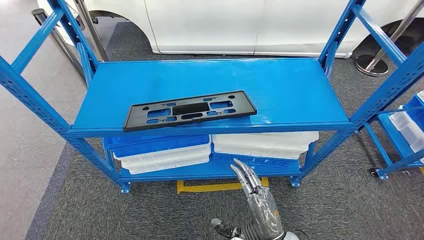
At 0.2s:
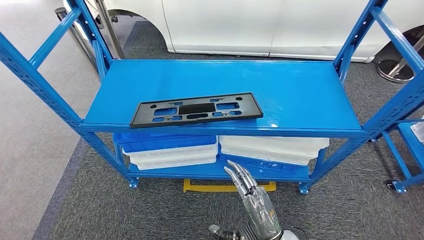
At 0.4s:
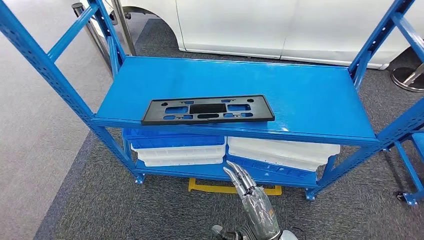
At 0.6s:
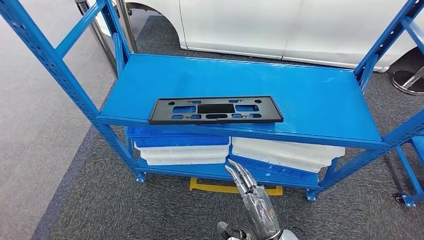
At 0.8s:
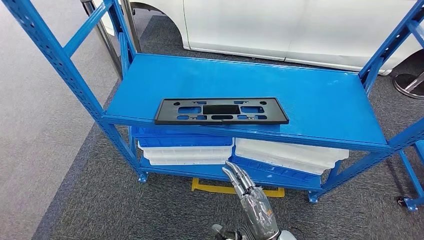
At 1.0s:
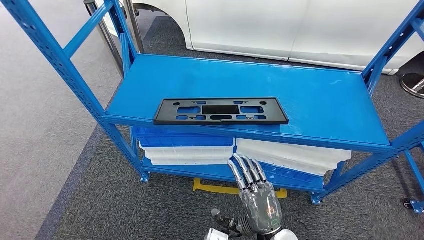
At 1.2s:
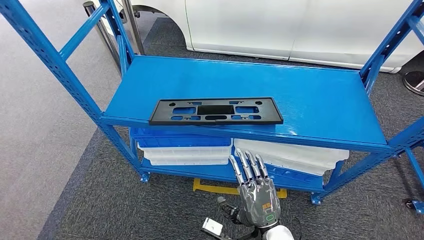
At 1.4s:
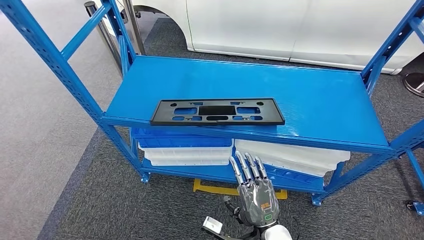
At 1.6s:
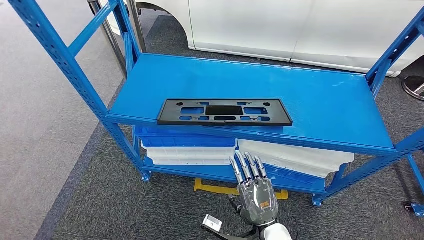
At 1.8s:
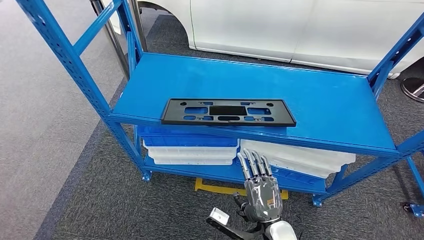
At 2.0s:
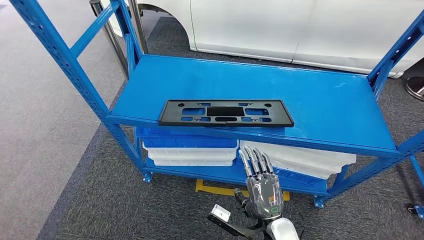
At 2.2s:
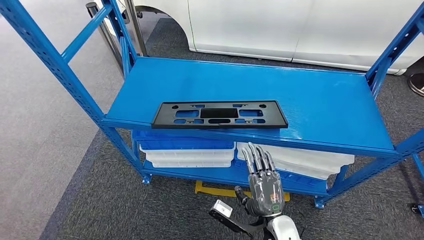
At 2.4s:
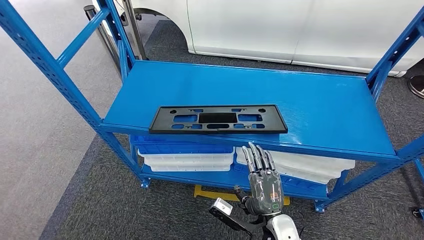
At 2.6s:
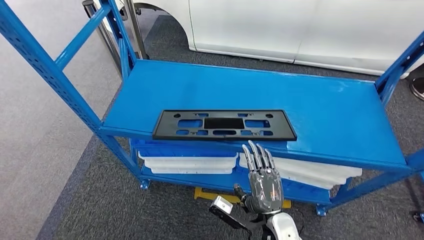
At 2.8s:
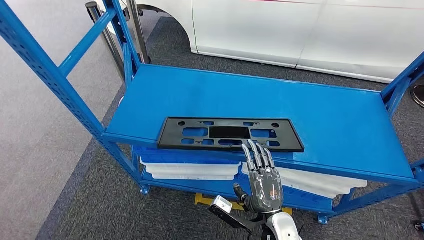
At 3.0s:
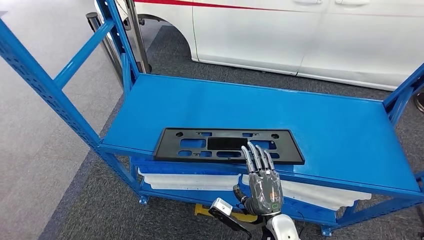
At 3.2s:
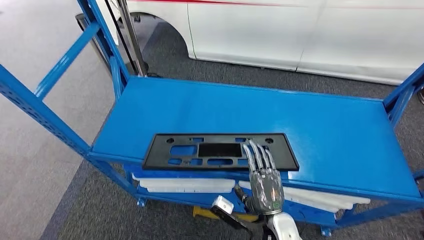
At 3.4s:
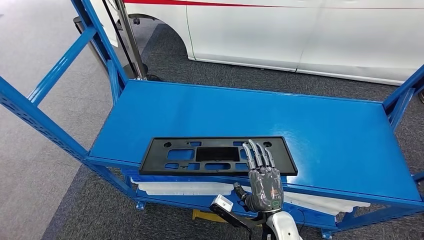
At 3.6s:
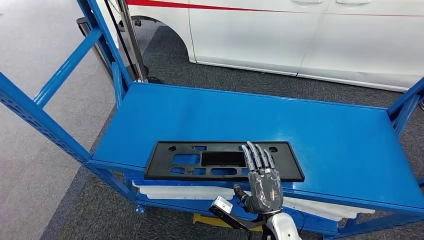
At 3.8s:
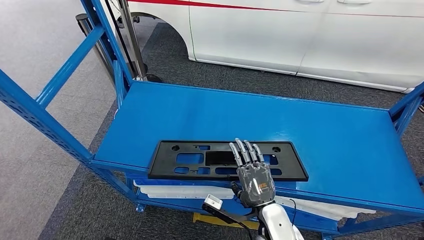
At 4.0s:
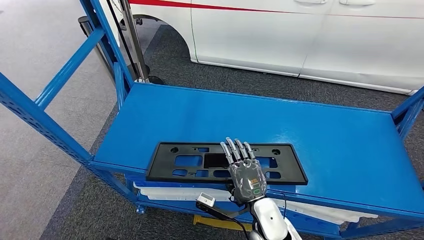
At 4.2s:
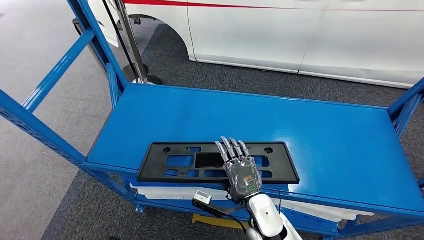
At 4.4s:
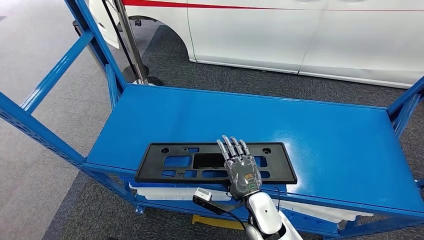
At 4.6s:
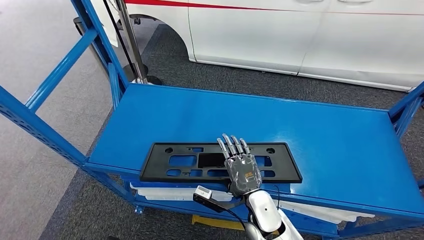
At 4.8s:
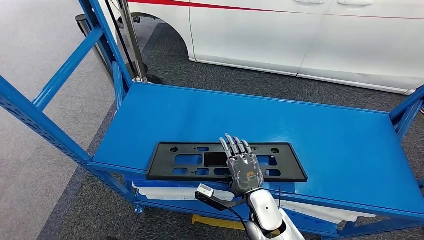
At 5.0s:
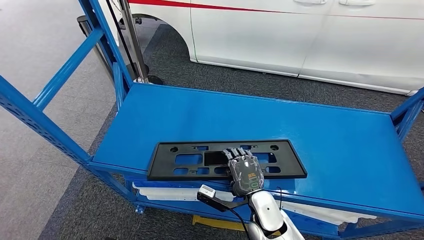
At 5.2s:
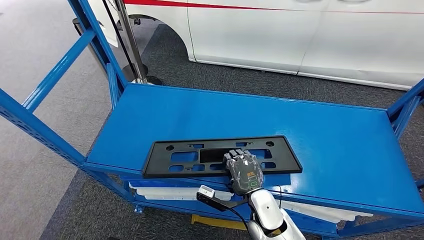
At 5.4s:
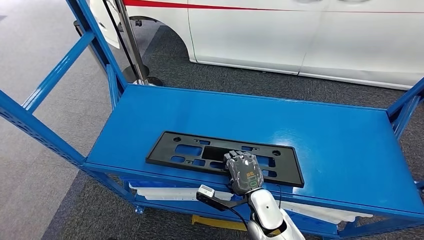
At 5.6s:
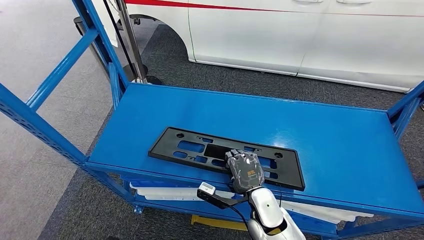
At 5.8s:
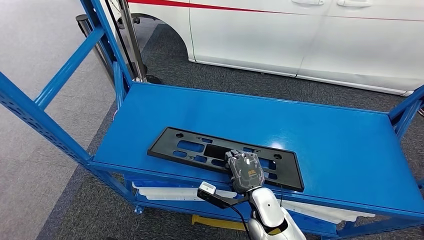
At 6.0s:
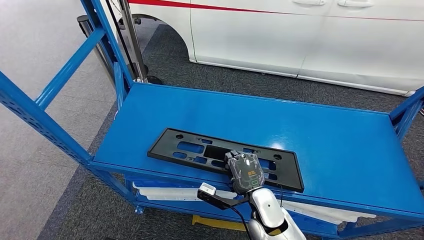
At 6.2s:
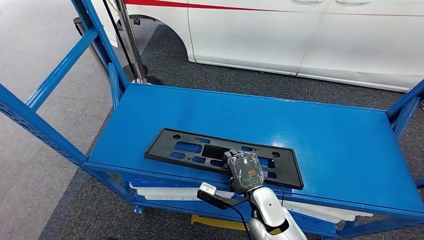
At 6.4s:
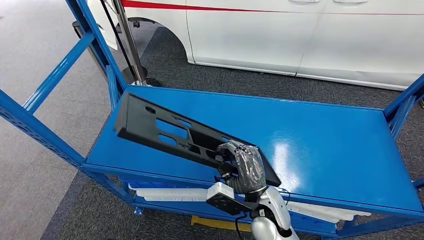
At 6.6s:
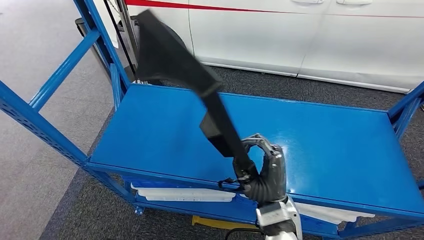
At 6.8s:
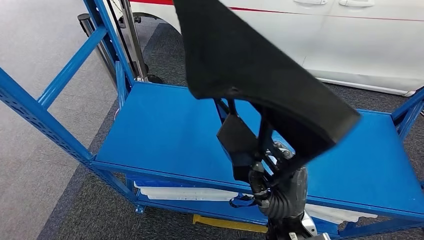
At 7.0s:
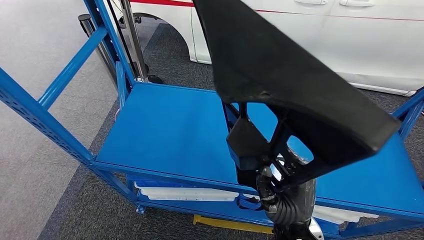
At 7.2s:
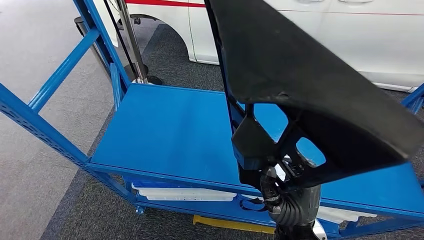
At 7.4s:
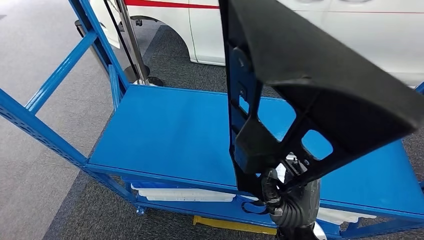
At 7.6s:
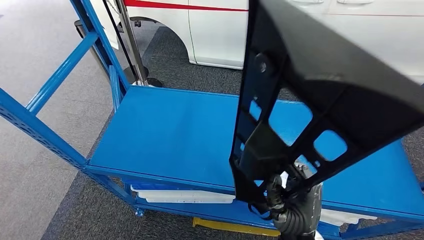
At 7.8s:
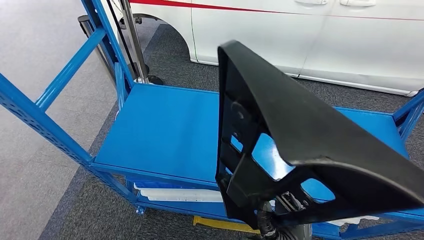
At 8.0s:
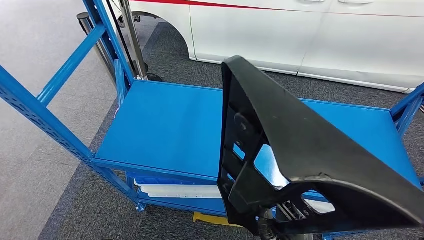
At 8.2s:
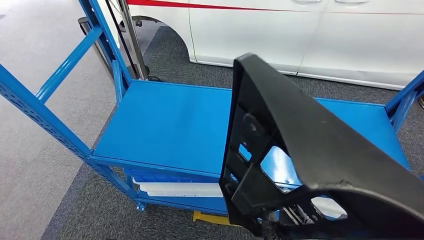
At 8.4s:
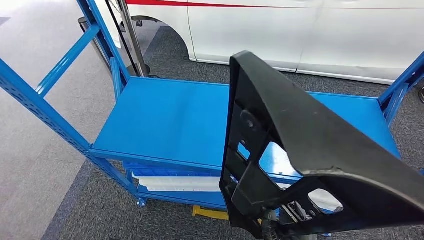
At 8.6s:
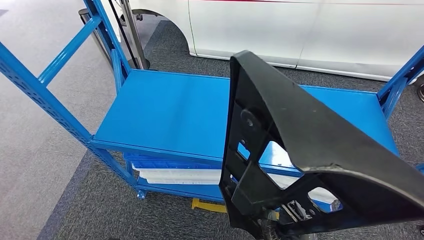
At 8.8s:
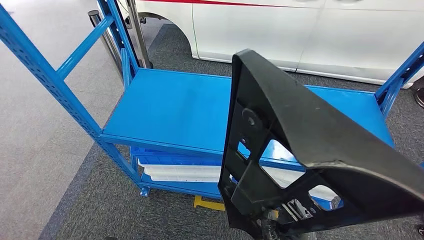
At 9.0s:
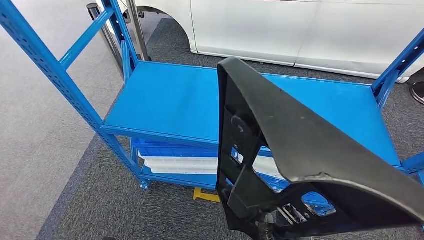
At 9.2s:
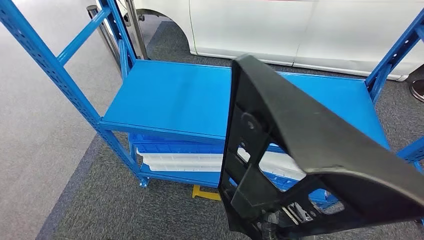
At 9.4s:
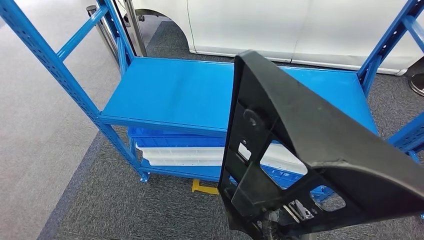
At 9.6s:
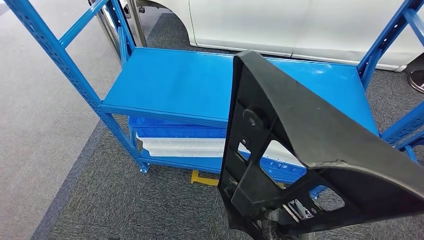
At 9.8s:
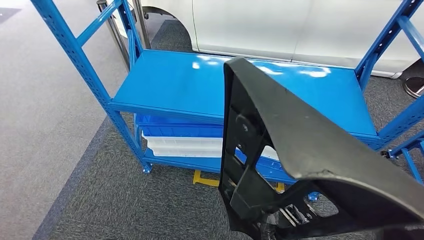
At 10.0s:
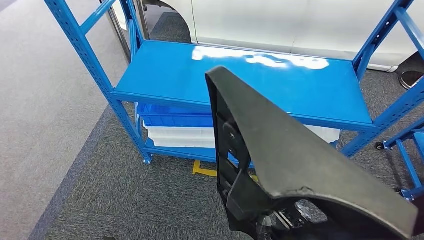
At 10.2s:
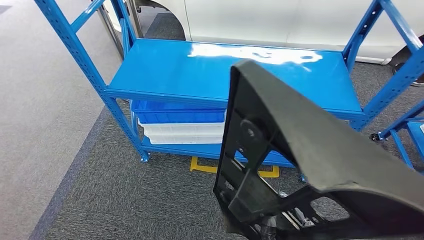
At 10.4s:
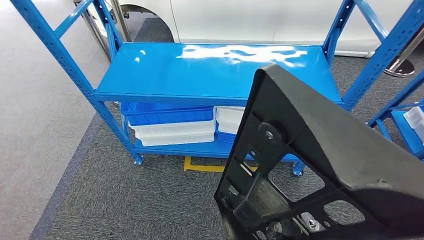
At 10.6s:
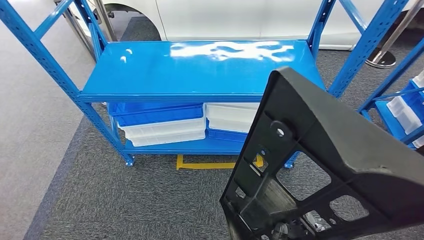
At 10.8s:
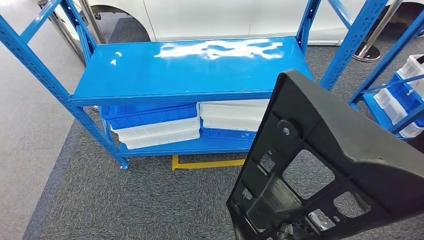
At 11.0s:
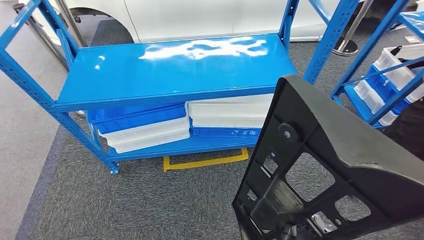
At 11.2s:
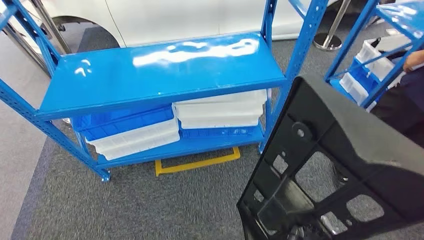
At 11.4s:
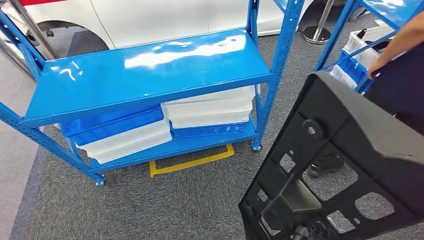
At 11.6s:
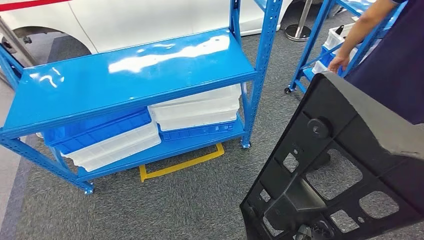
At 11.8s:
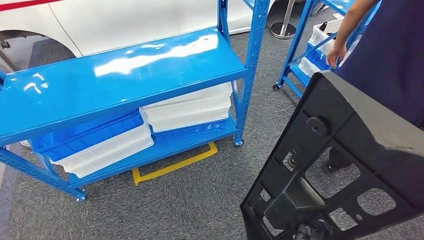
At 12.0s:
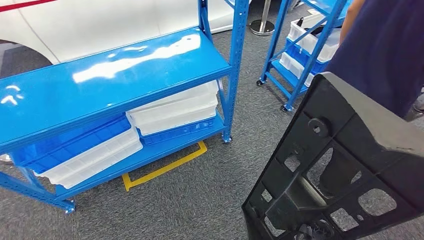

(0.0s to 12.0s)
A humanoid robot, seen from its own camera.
Step, 0.0s - 7.8s: Pick up the large material from the shelf.
4.4s - 6.0s: The hands move only a little.

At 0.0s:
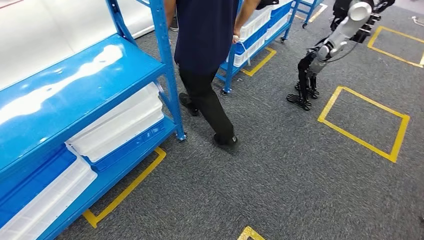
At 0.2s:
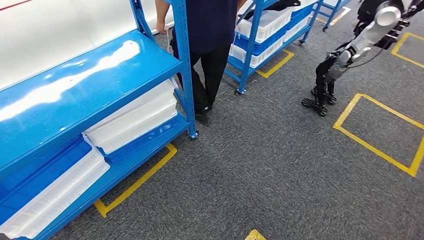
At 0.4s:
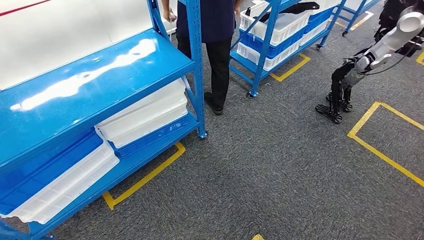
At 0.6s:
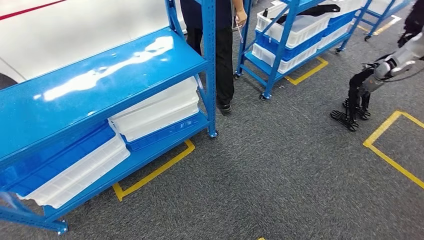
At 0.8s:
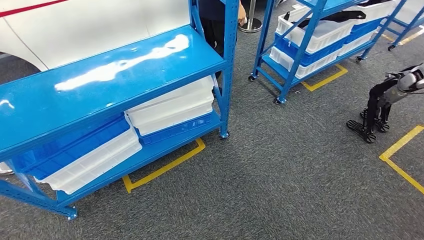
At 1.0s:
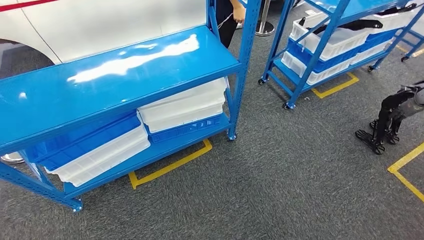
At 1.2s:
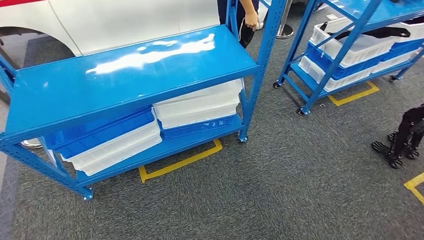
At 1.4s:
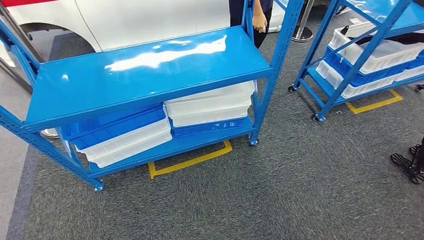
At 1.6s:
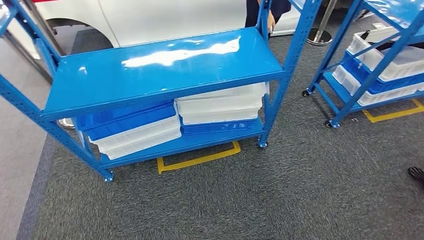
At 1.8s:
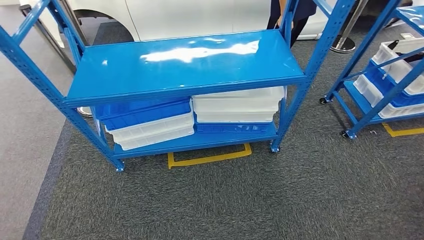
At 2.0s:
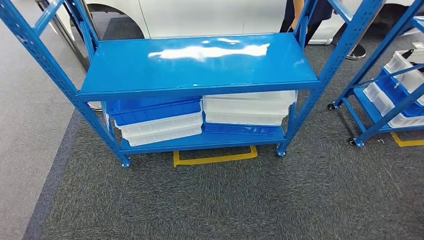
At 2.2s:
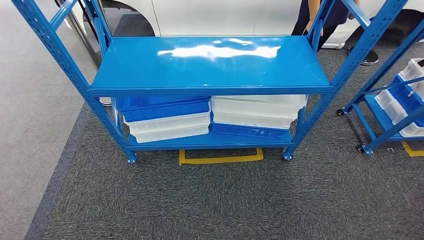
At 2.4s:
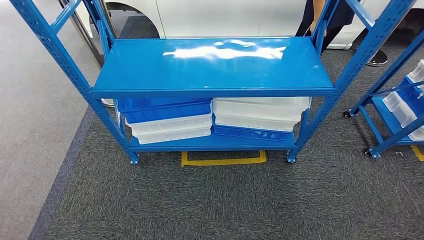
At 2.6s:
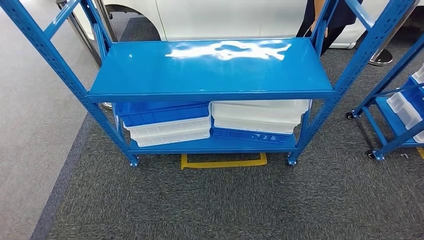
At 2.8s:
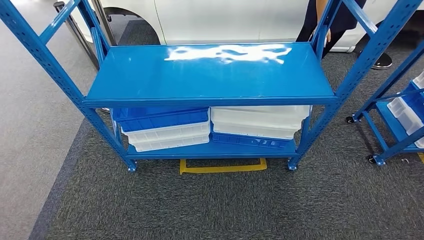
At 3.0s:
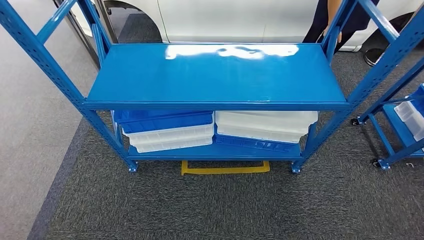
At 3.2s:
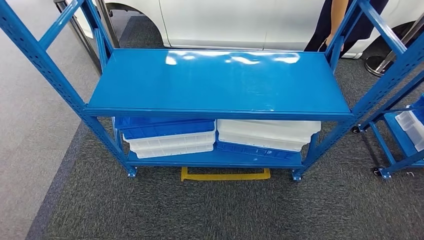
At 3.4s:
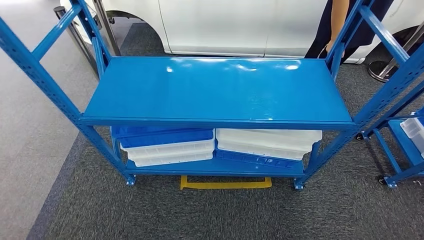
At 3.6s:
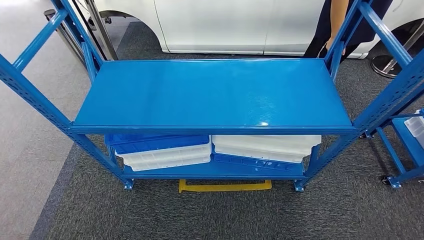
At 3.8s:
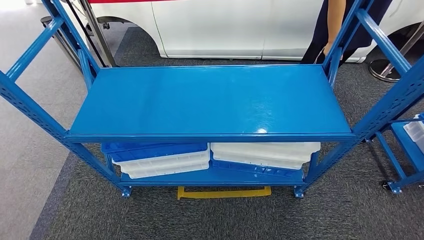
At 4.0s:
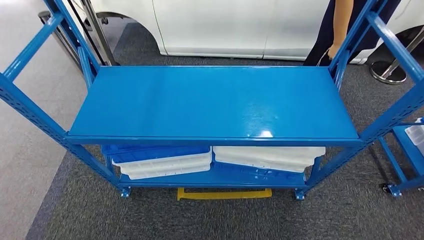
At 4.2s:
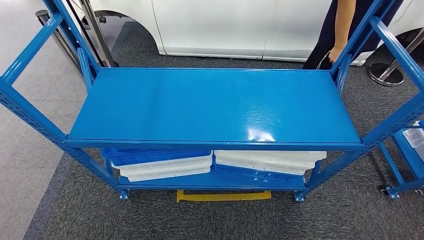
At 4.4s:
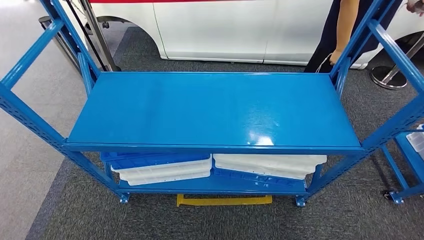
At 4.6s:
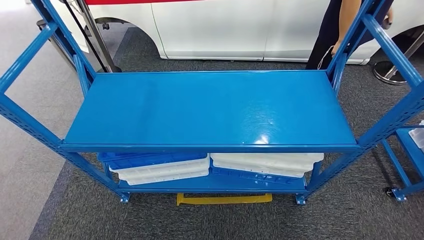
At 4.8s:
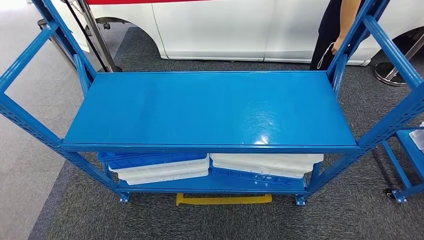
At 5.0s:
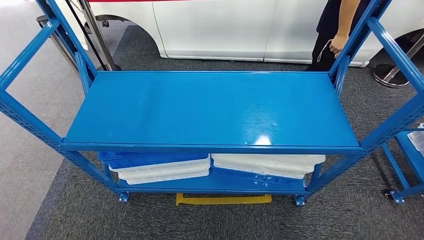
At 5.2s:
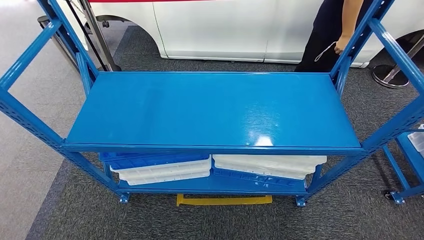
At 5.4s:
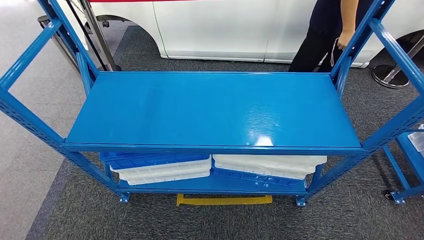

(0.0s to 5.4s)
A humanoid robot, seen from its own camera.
Step, 0.0s - 5.2s: Return to the initial position at the shelf.
